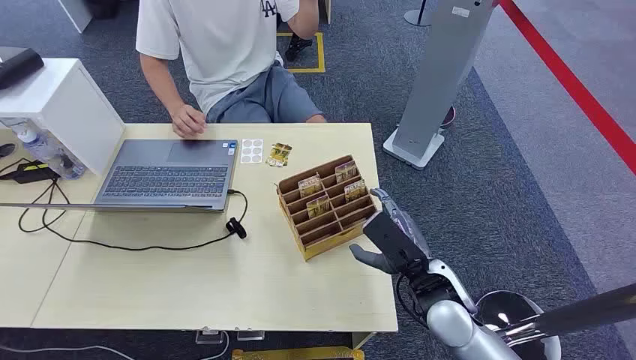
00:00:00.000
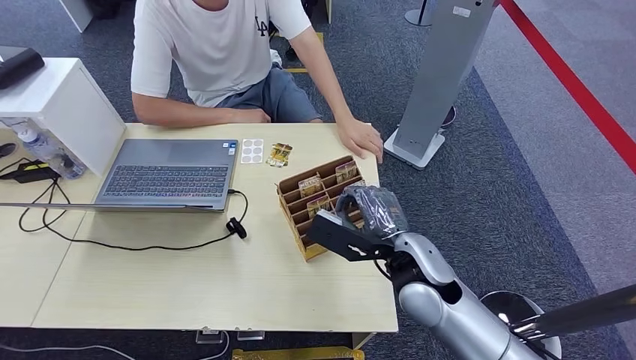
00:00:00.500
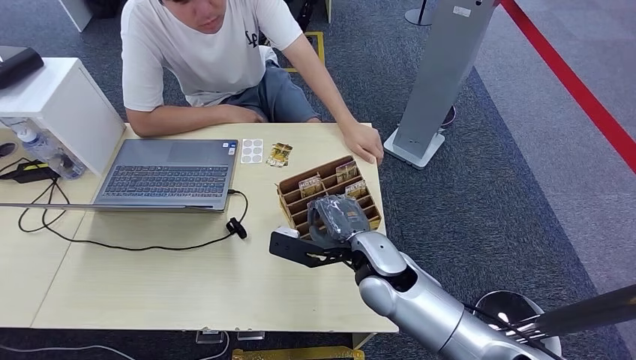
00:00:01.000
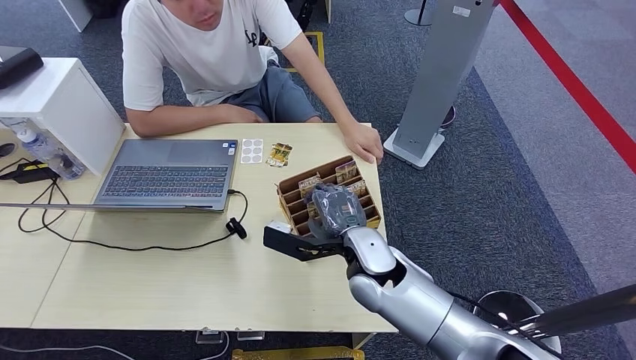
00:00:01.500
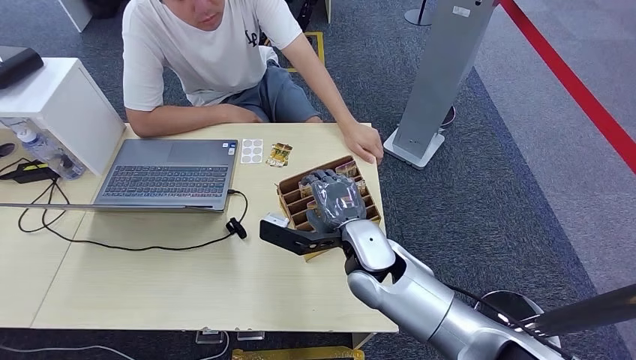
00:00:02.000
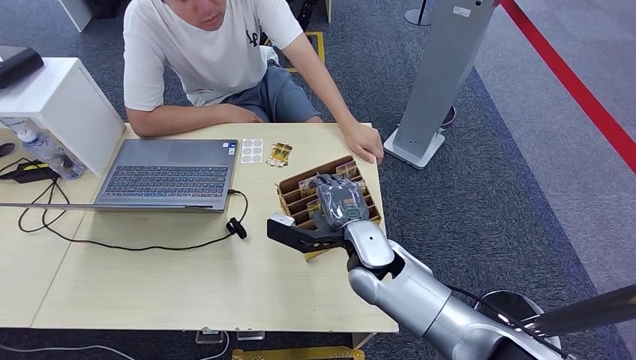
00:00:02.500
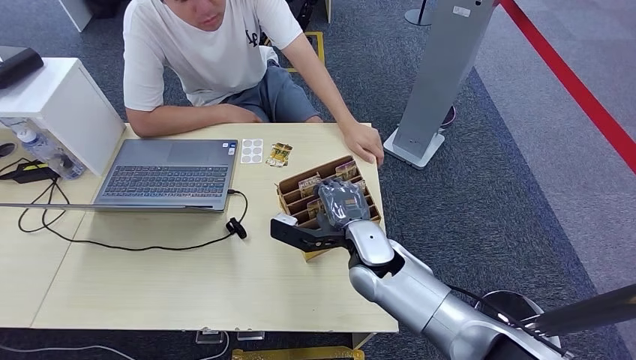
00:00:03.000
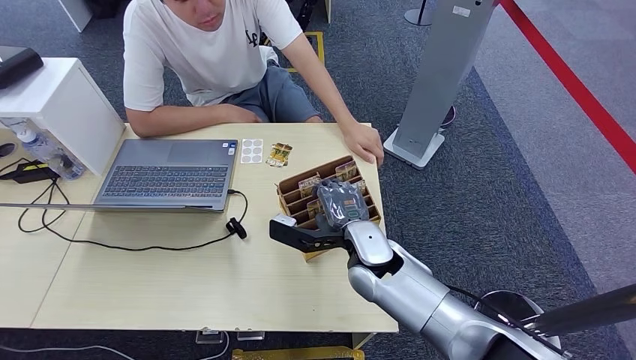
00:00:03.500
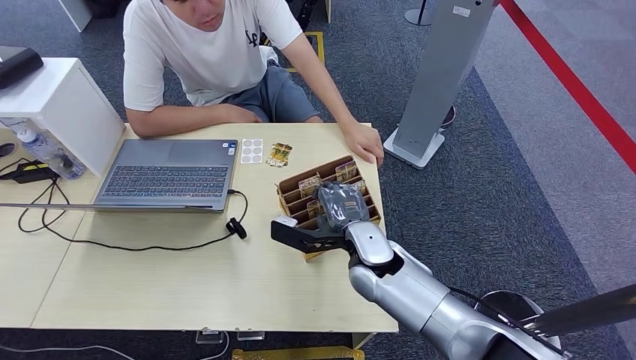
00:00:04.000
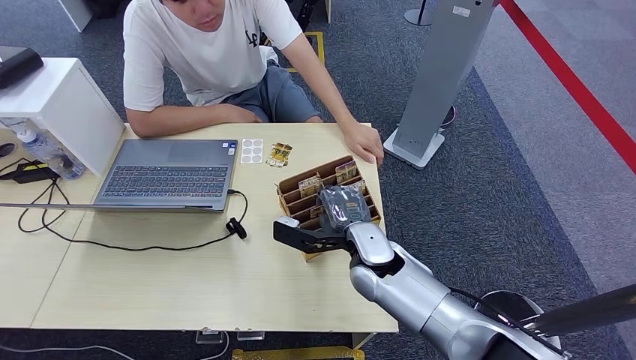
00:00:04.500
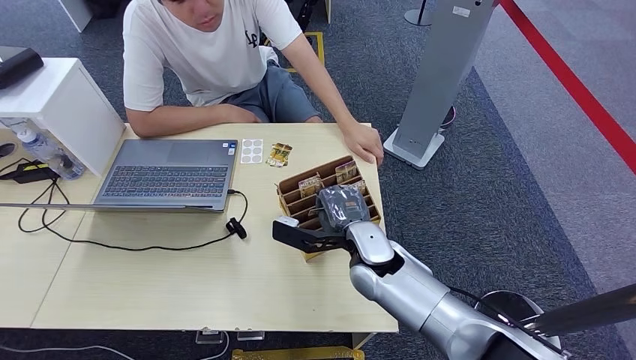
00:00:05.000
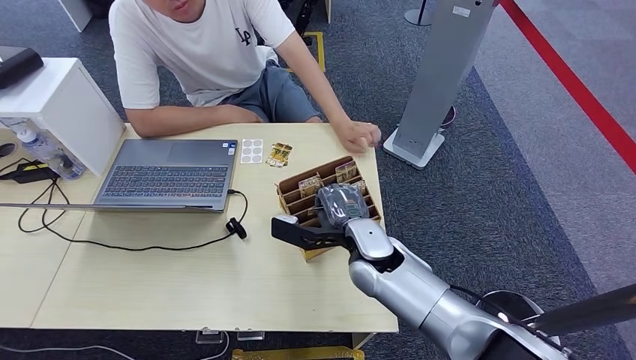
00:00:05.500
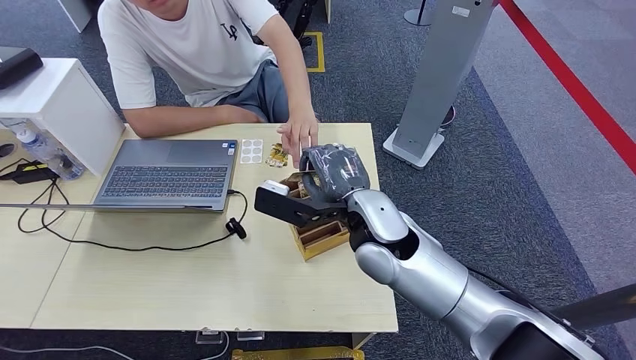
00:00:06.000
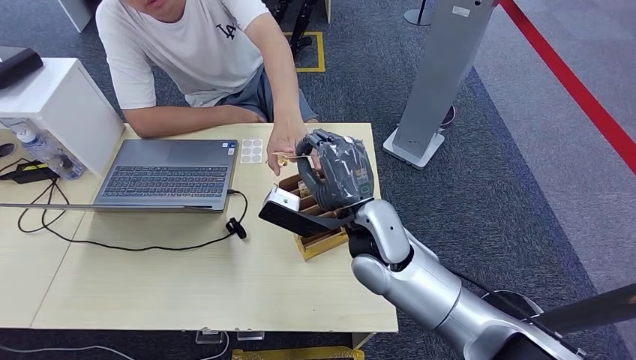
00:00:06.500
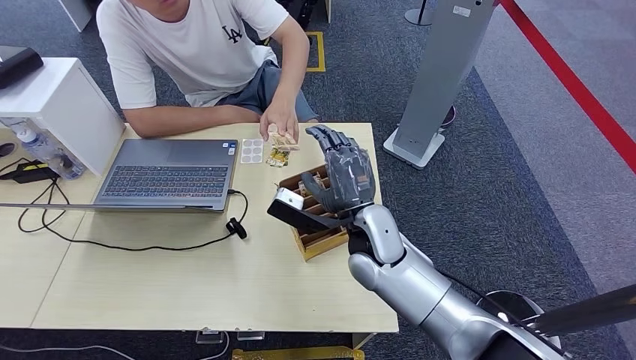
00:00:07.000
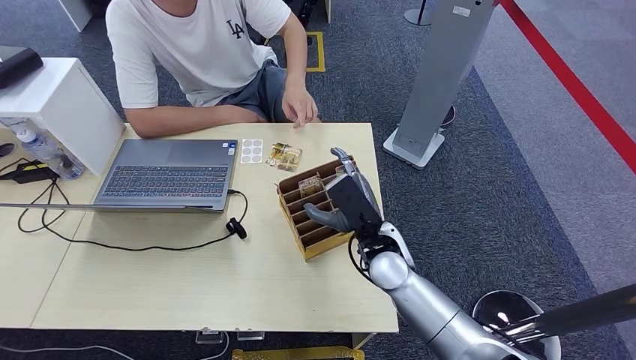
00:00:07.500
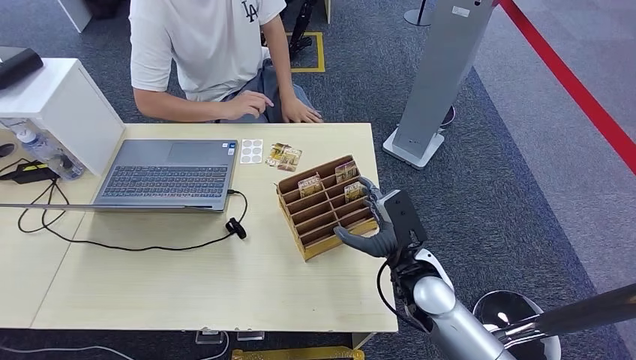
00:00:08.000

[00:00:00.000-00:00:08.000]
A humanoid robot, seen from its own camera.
Step, 00:00:00.000 to 00:00:06.000: Pick up the key card from the card box.
Step, 00:00:06.500 to 00:00:08.000: Hand the key card to the target.
00:00:02.000 to 00:00:04.000: The hands make only small movements.
00:00:04.000 to 00:00:06.000: The right hand shifts approximately 10 cm upward.
00:00:06.000 to 00:00:08.000: The right hand is displaced downward and to the right by approximately 15 cm.
